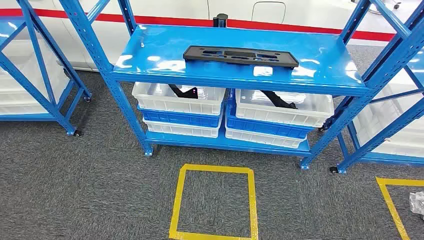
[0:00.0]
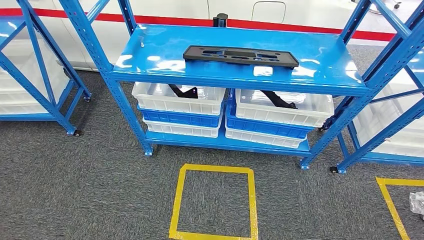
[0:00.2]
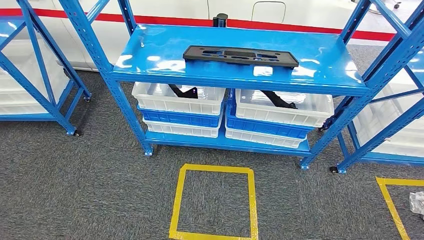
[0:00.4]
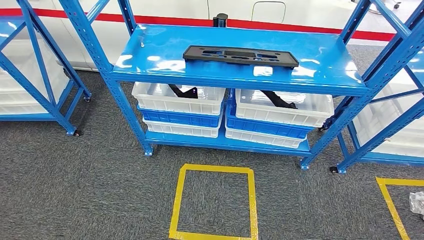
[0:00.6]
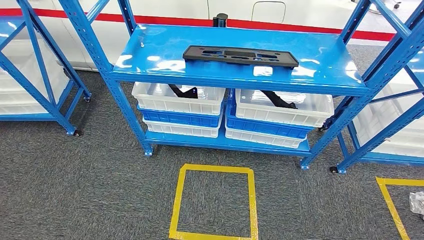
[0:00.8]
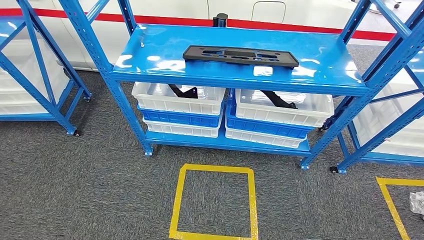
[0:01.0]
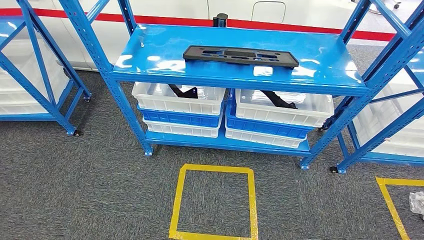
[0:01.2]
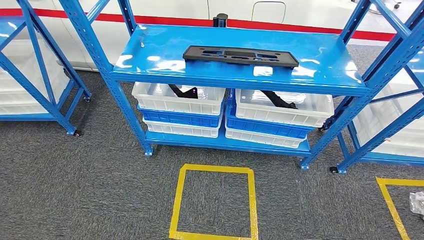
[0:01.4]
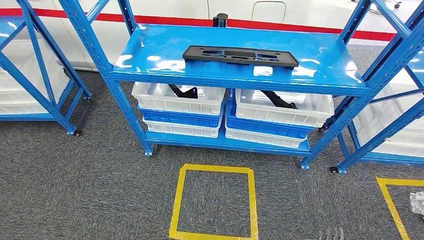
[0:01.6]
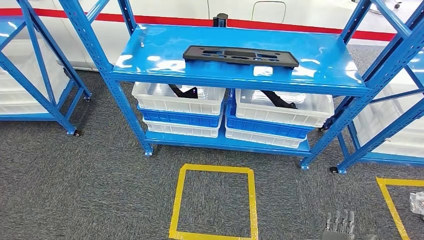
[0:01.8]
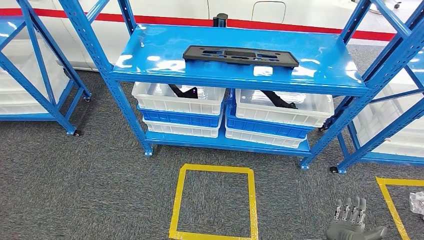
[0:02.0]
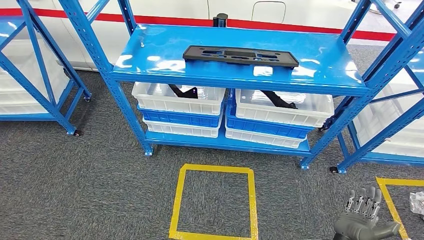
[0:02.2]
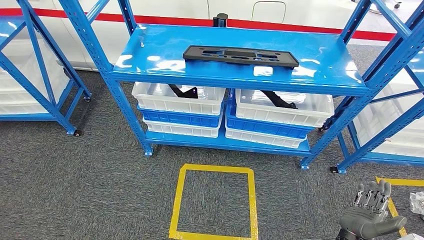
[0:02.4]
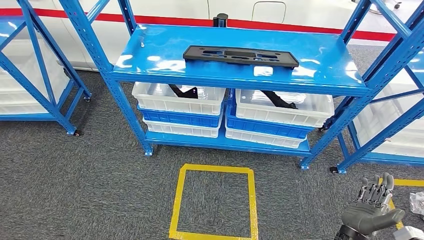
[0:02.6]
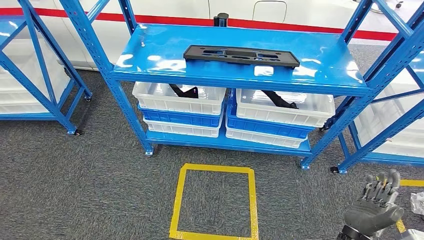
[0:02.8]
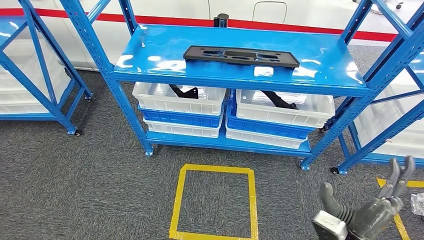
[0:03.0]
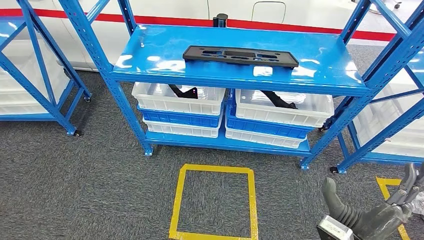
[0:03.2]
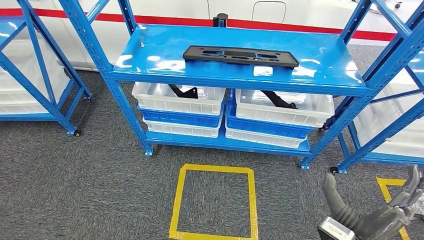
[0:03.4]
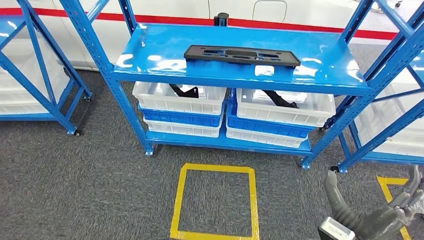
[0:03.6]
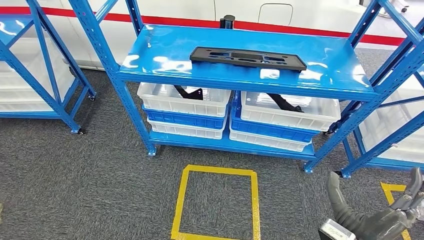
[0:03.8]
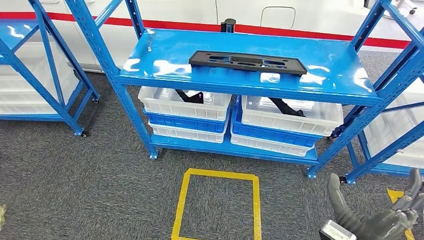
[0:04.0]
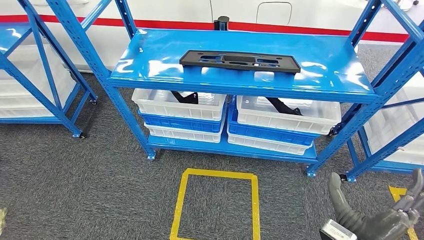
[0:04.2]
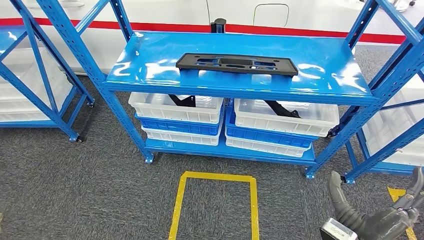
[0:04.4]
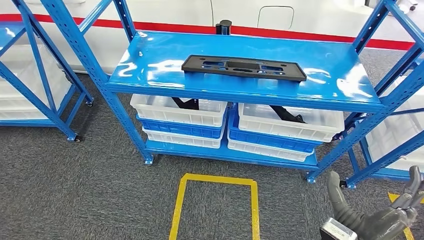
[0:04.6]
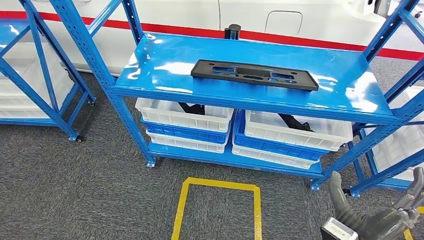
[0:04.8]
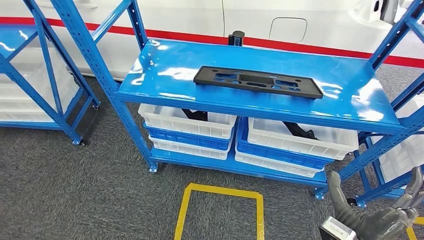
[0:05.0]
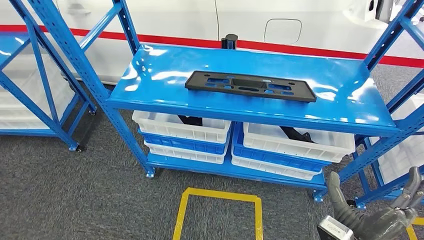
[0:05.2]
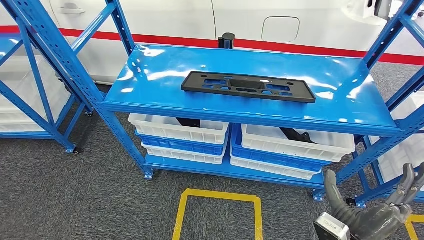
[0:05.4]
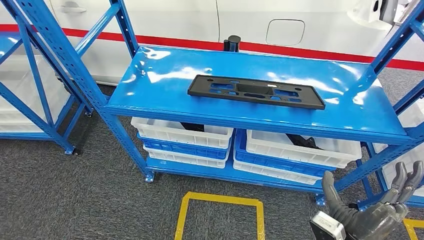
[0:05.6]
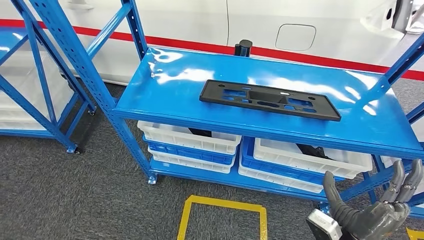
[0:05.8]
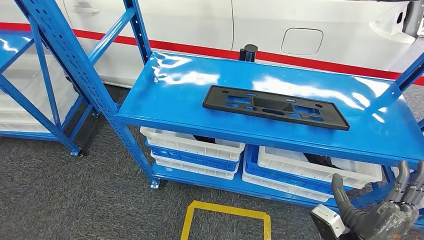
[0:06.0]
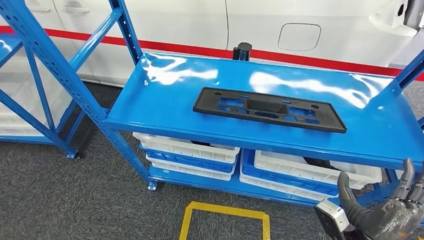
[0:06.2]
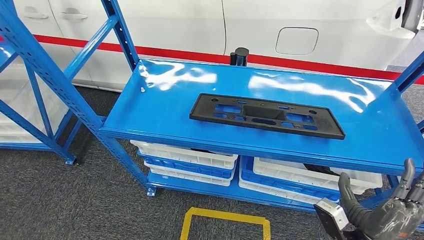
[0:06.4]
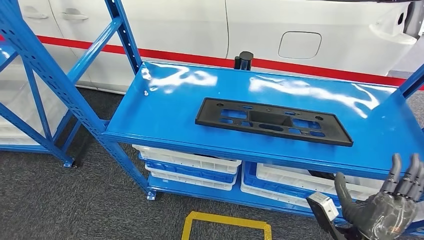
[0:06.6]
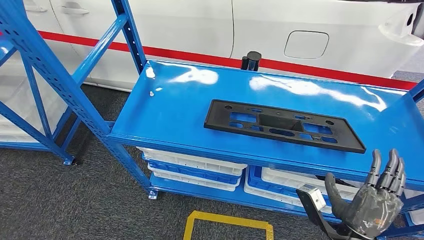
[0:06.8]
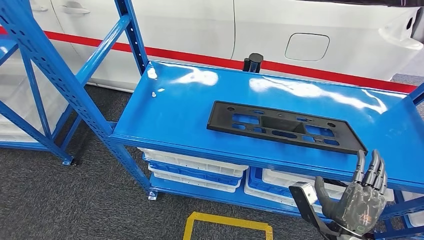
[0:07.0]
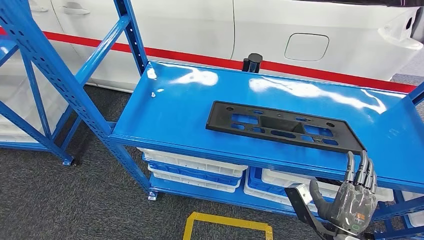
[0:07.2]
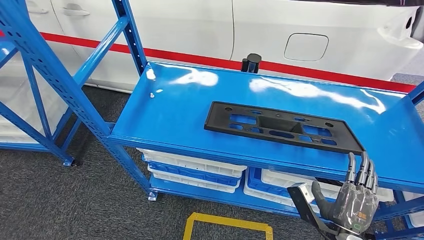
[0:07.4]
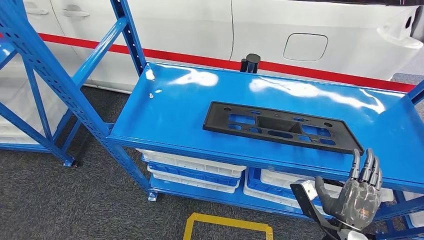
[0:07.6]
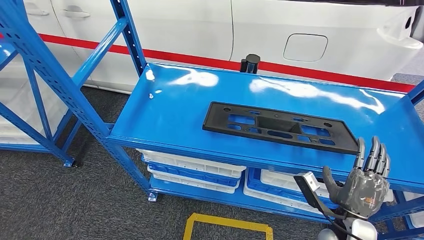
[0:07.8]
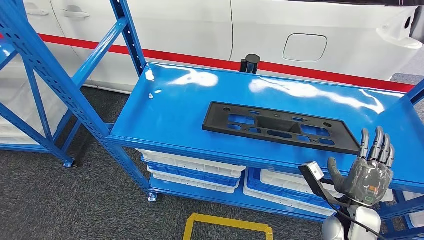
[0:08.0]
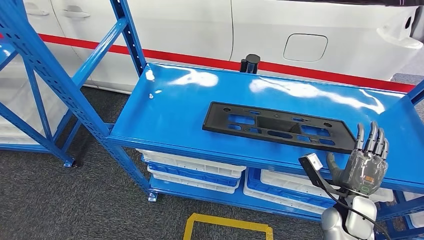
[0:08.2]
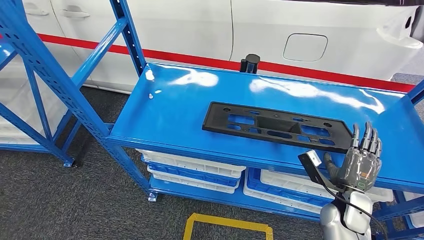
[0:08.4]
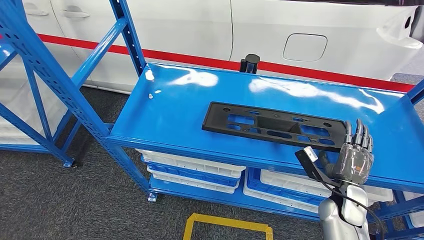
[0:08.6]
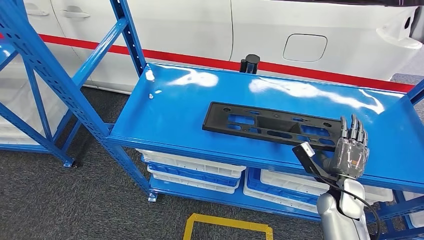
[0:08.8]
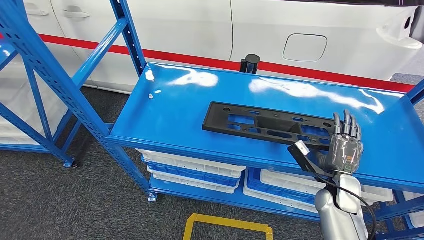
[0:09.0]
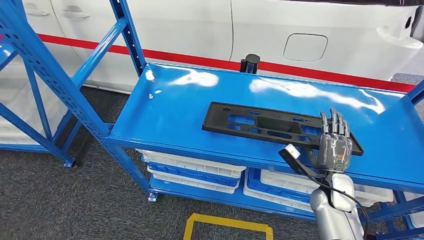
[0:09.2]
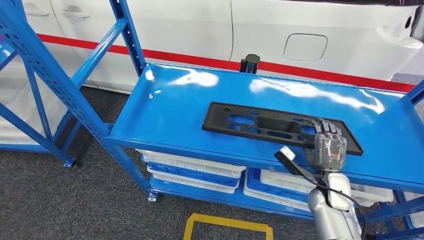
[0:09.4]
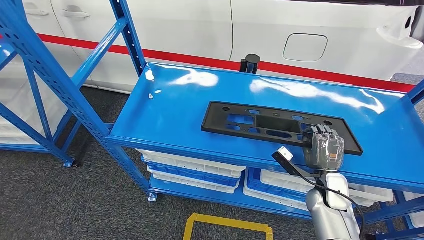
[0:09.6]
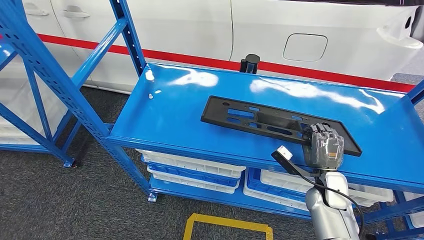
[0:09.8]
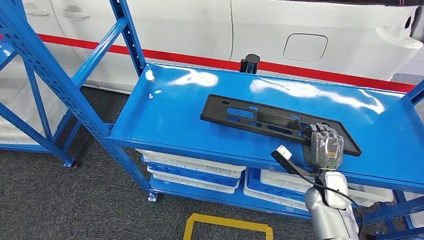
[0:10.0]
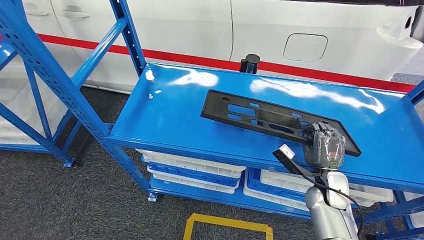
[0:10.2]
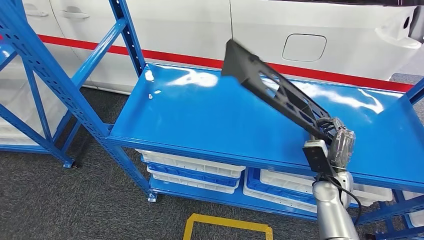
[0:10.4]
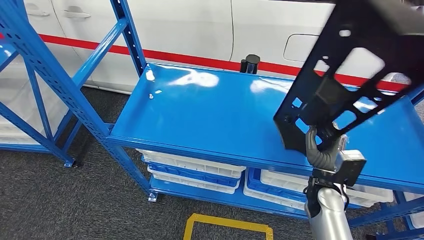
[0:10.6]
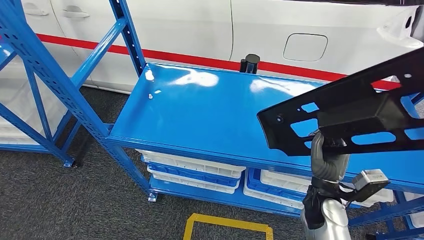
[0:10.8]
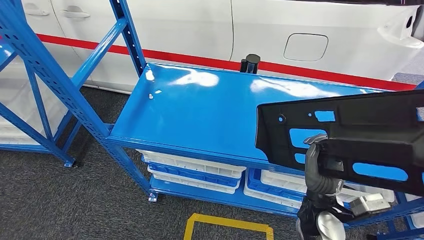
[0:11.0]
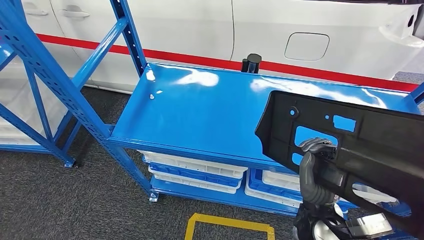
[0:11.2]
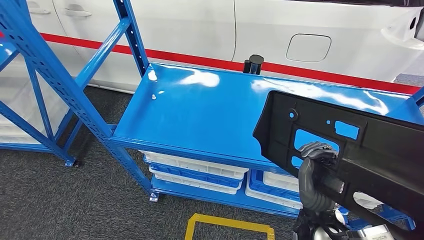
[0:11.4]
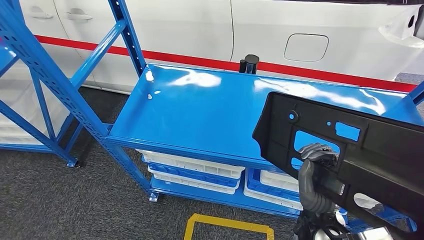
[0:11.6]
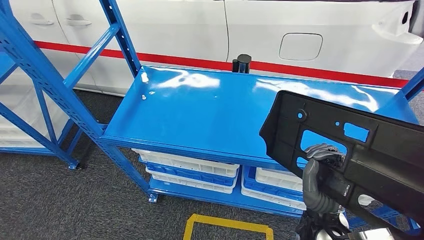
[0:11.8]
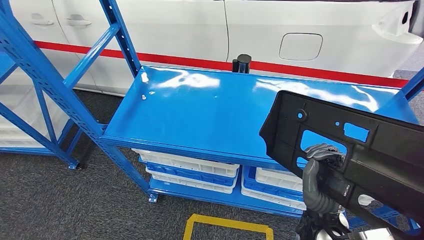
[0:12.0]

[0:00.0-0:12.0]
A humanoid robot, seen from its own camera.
Step, 0:00.0 to 0:10.6: Pick up the large material from the shelf.
0:01.6 to 0:03.0: The right hand goes roughly 20 cm upward.
0:07.6 to 0:09.0: The right hand travels forward and to the right by approximately 15 cm.

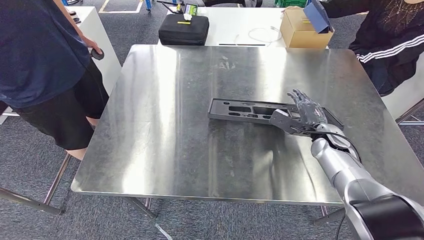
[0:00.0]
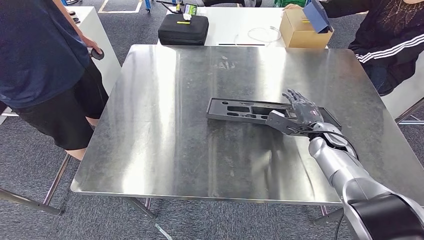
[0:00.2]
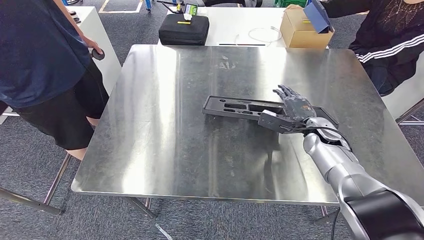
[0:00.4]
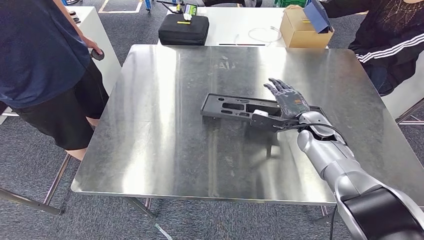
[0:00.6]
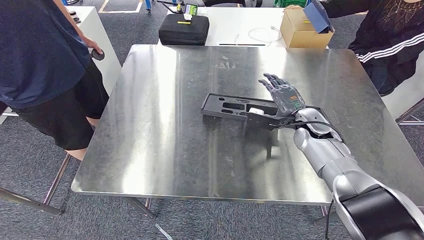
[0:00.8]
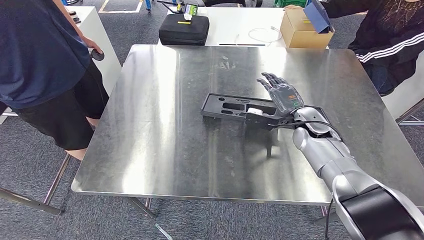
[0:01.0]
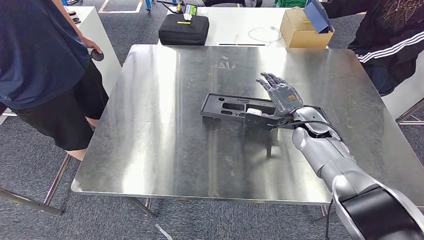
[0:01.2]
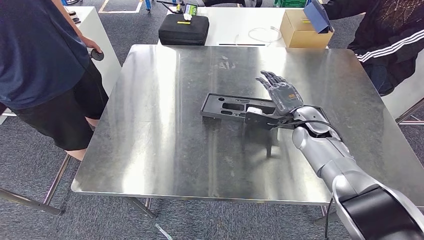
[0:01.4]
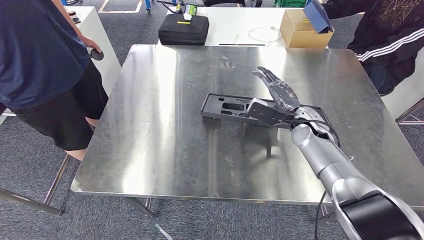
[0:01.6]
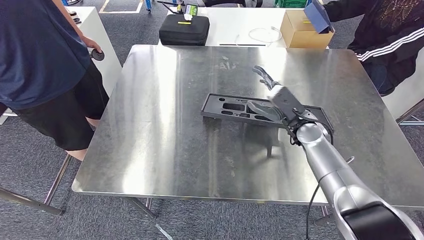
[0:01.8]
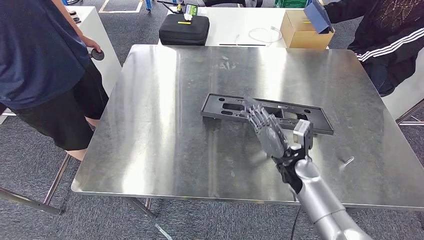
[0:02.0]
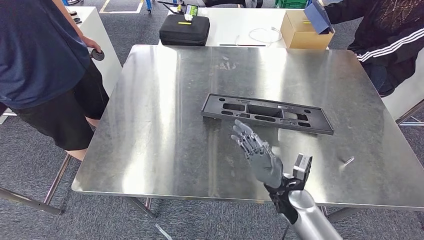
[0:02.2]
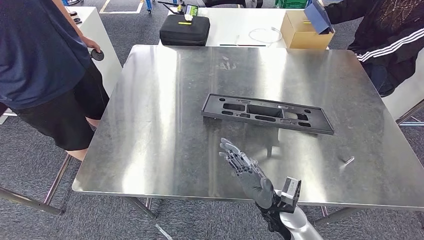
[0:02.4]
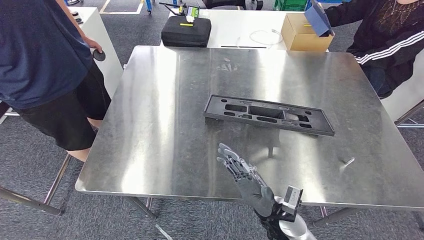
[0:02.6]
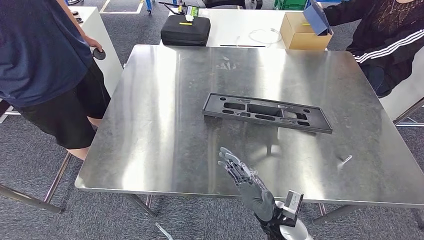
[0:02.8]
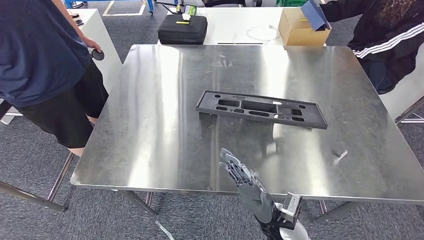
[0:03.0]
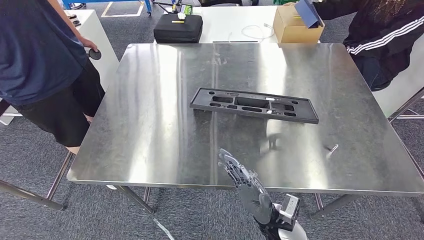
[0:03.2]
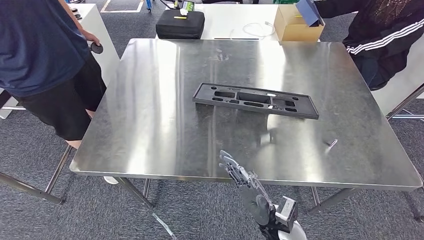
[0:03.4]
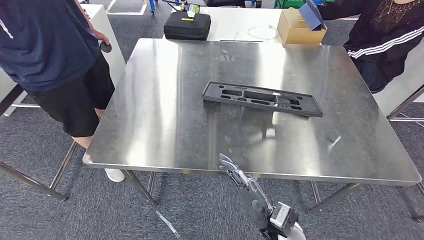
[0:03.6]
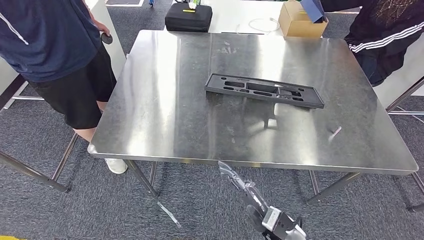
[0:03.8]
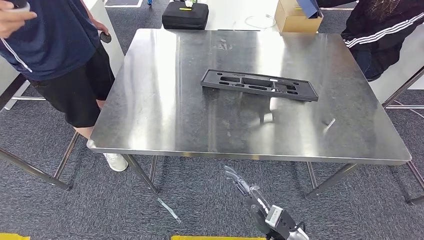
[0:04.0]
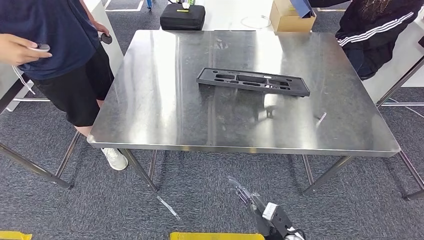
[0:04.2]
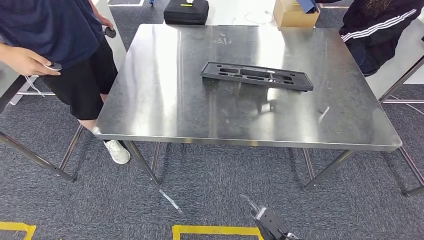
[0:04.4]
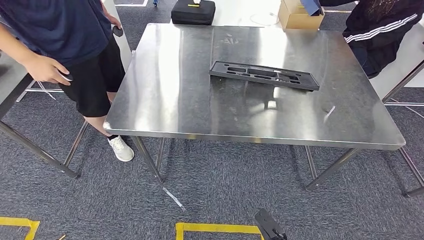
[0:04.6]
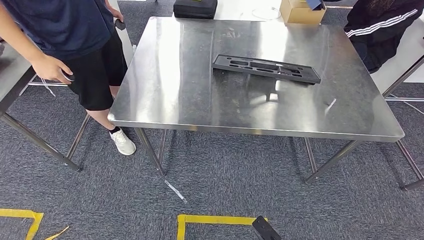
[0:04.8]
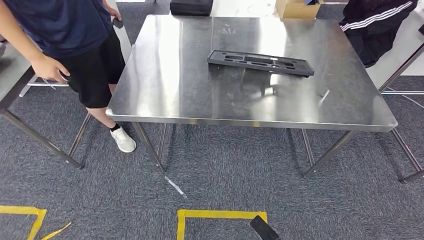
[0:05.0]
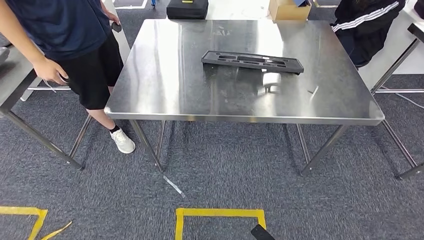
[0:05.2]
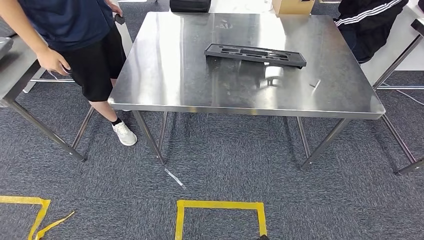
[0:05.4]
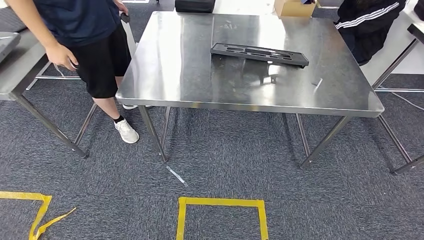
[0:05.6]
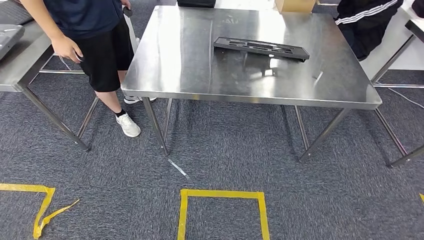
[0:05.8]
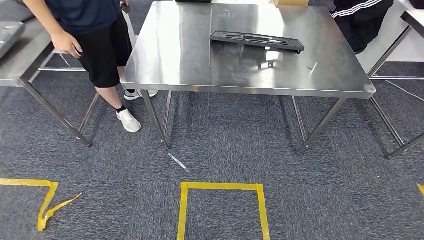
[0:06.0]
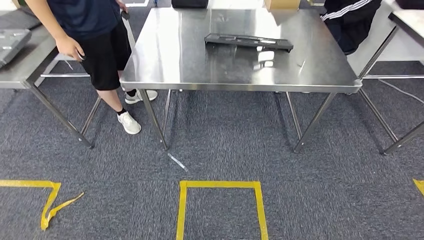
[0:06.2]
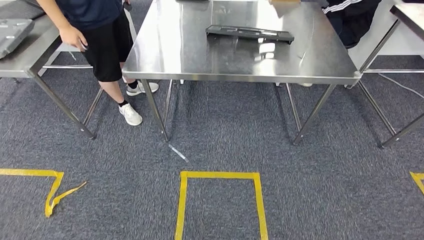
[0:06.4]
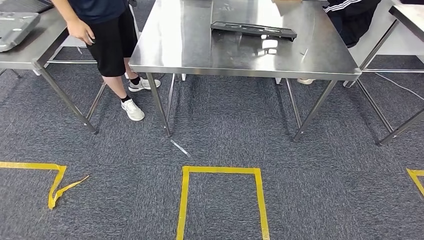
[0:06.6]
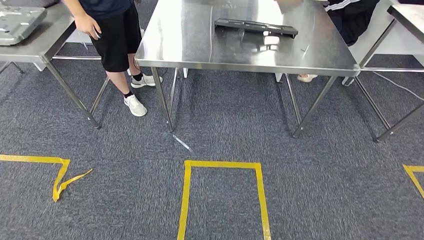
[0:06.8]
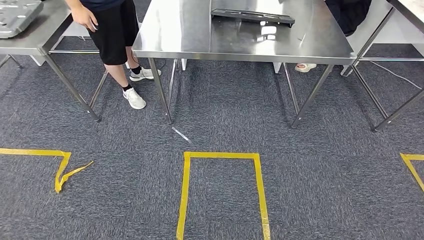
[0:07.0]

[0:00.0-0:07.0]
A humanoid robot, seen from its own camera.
Step, 0:00.0 to 0:02.6: Insert the large material into the corresponding slot on the workbench.
0:00.0 to 0:01.4: The right hand goes some 5 cm to the left.
0:01.4 to 0:02.8: The right hand heads backward, downward and to the left, covering roughly 25 cm.
